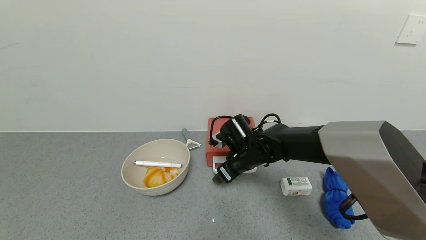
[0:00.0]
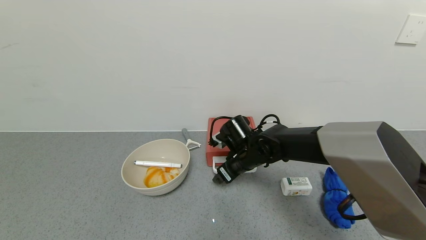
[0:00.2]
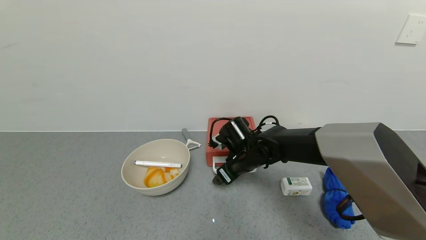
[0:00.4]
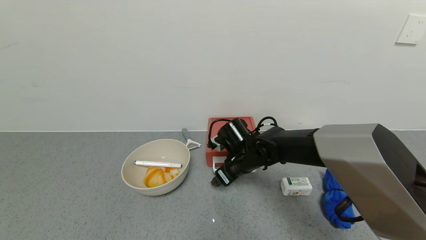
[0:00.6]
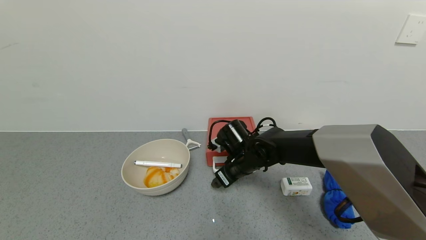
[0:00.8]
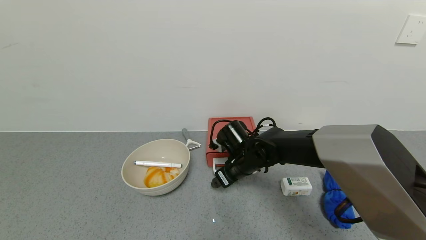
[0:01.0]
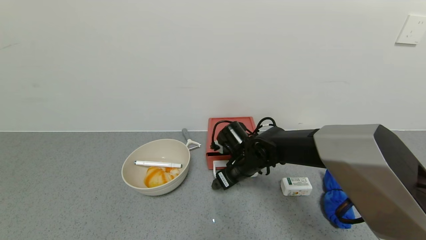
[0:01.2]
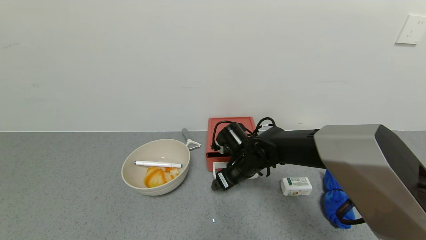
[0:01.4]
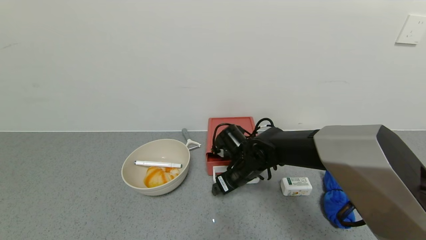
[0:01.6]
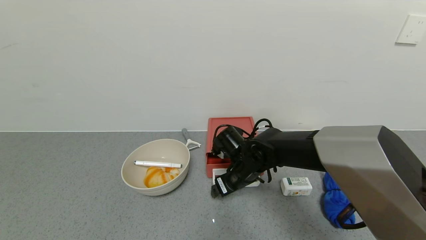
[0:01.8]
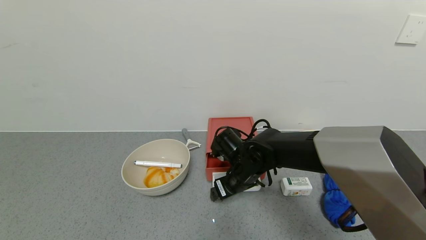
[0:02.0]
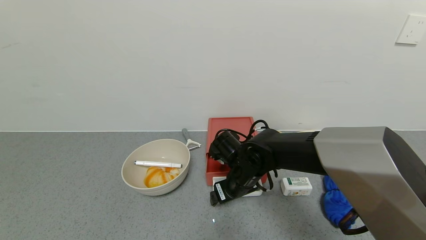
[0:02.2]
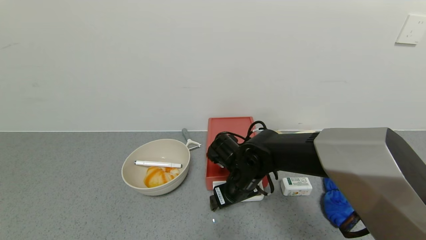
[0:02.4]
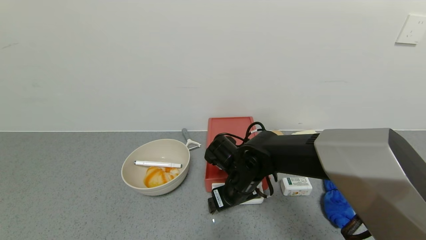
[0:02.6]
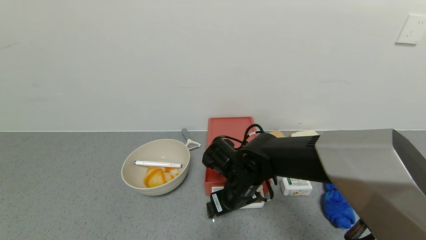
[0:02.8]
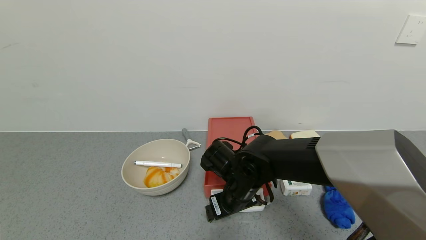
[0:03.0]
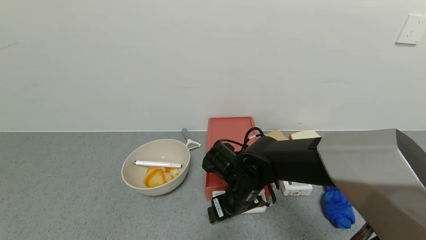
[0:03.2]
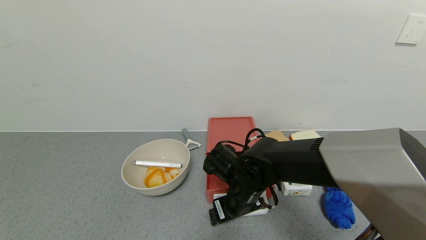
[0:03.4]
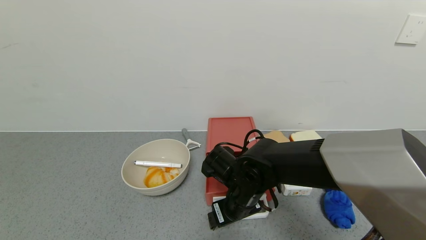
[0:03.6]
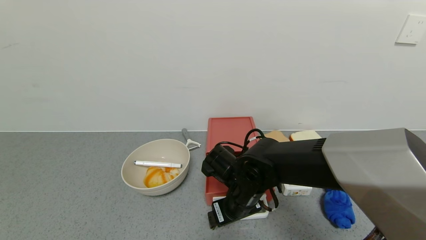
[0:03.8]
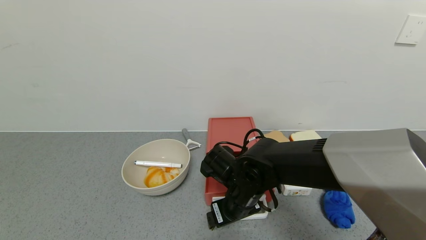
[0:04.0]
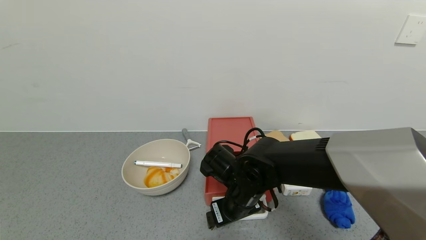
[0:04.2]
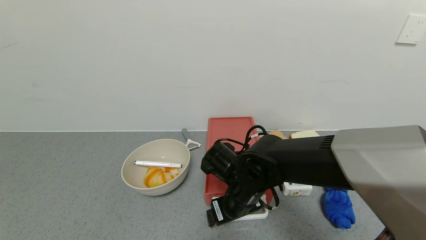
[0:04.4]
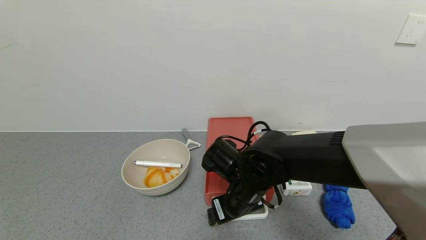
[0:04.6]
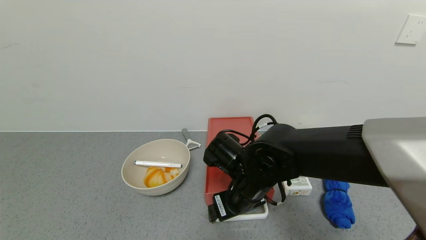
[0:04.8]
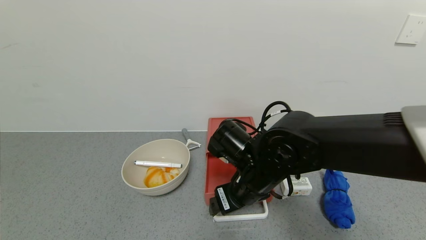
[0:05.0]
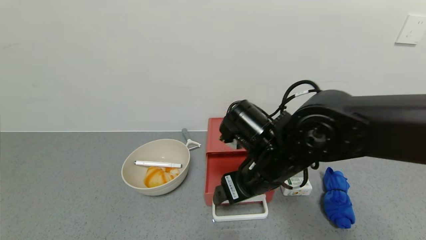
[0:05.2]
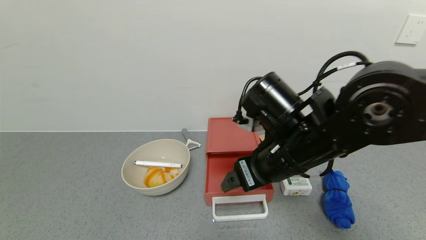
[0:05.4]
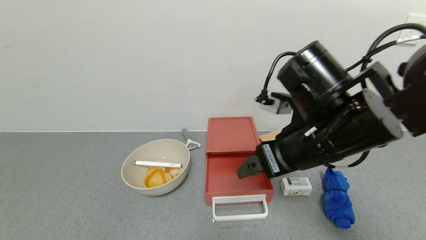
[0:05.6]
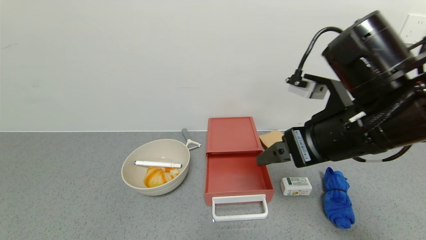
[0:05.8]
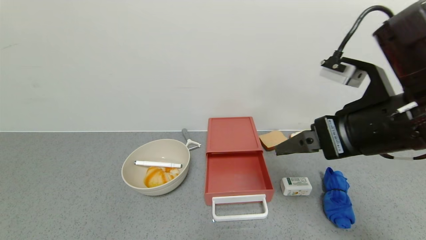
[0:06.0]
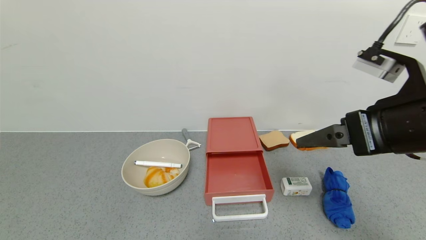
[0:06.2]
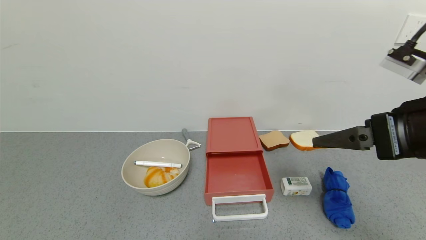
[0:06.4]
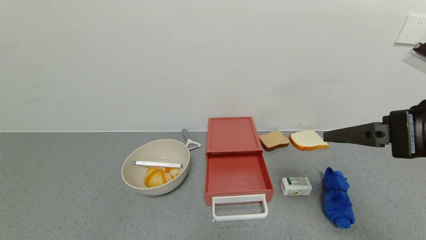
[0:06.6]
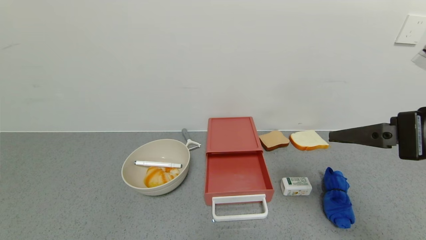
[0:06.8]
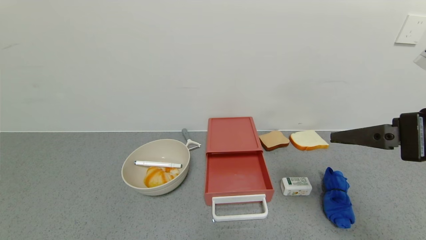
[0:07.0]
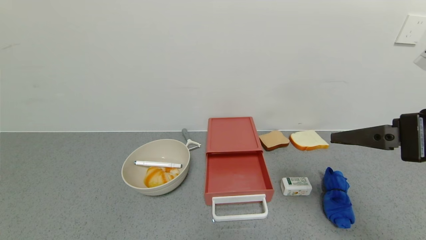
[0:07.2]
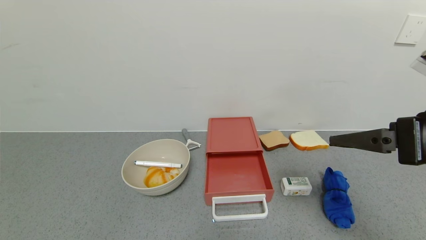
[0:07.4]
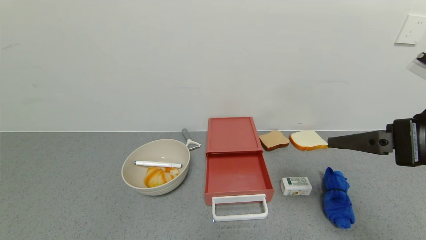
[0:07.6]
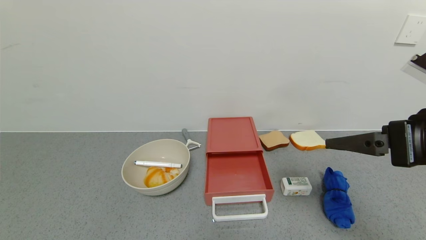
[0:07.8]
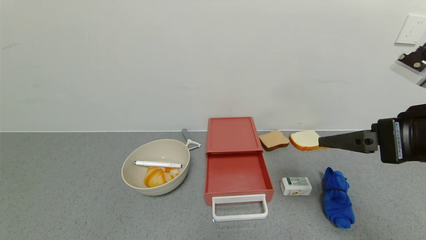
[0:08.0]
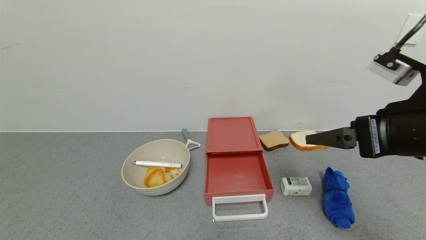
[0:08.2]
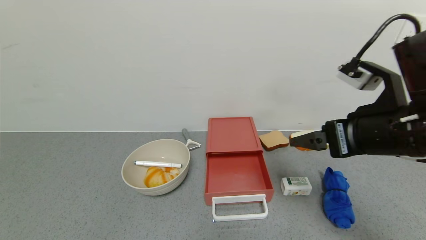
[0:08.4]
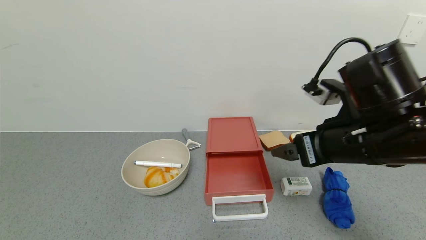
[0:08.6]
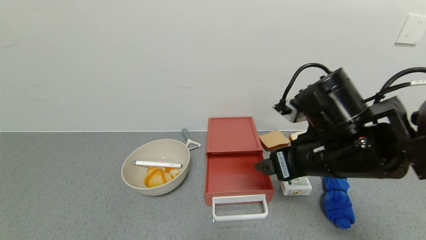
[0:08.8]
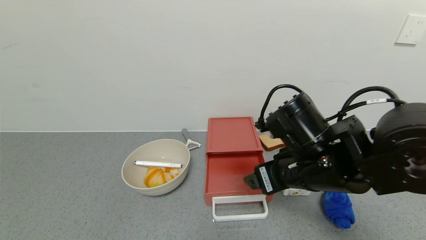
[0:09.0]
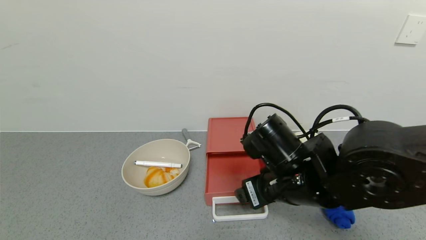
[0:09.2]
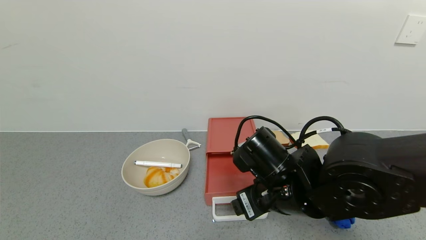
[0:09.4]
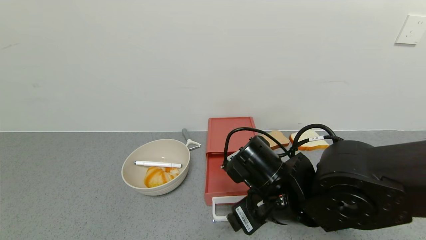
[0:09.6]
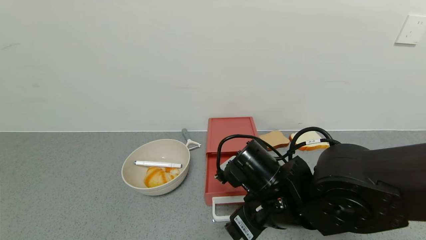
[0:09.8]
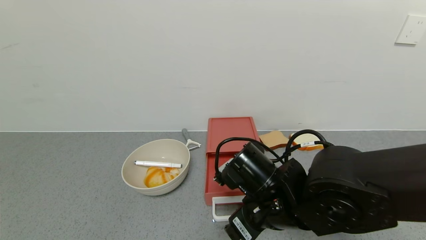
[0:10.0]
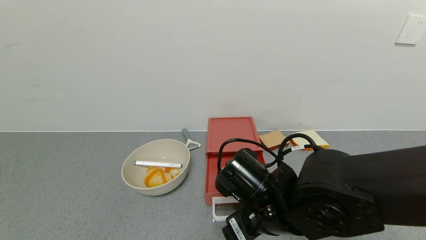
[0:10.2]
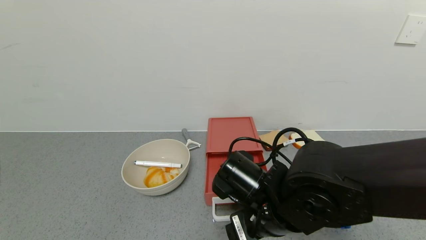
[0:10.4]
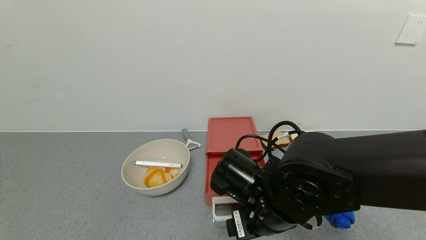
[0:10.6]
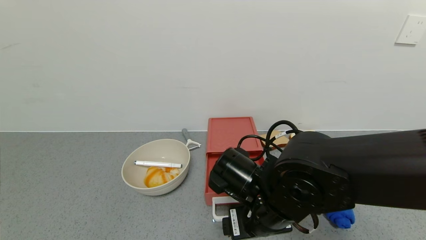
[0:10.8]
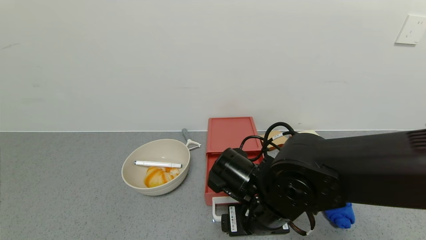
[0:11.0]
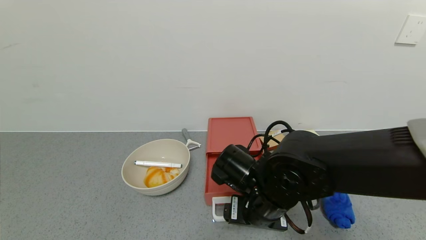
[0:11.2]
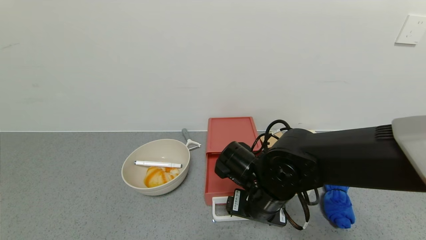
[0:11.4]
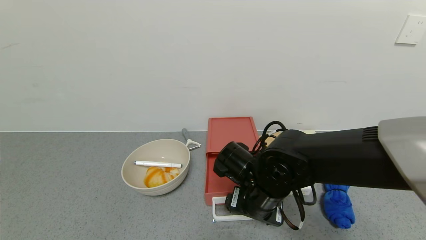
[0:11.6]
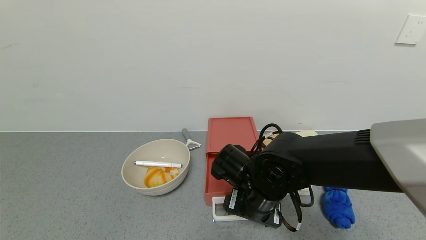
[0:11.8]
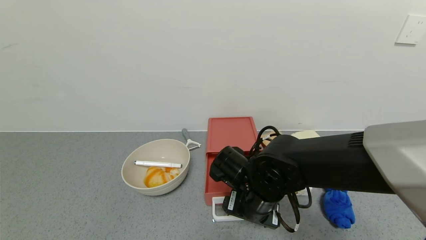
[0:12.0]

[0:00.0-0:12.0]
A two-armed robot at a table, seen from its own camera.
Task of the whole recording: use the gripper to open the drawer and close the red drawer.
Step, 0:00.0 to 0:05.0: Open the red drawer with the left gripper.
0:00.0 to 0:01.6: There are only small adjustments of the grippers.
0:01.6 to 0:03.0: The right gripper heads backward, covering some 5 cm.
0:03.0 to 0:04.4: The left gripper reaches about 10 cm upward, then returns.
0:04.4 to 0:06.0: The right gripper goes some 25 cm upward and to the right.
0:06.0 to 0:07.6: The right gripper shifts roughly 5 cm to the right.
0:07.6 to 0:09.0: The right gripper heads to the left, downward and forward, covering roughly 20 cm.
0:09.0 to 0:10.4: The right gripper goes about 10 cm downward and to the left.
0:10.4 to 0:12.0: The right gripper ends up about 5 cm from where it was.

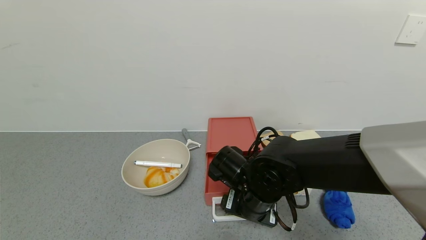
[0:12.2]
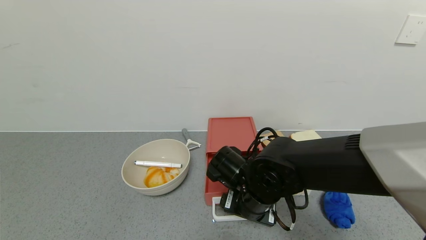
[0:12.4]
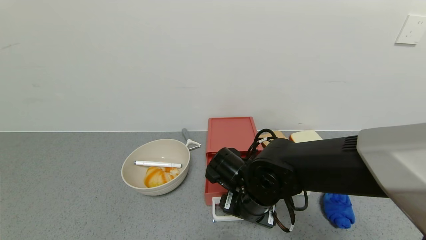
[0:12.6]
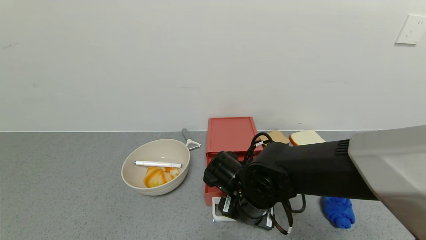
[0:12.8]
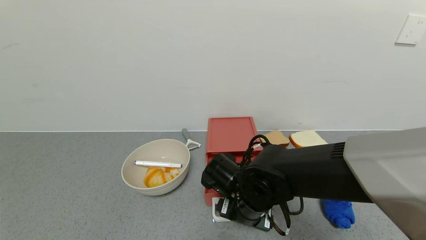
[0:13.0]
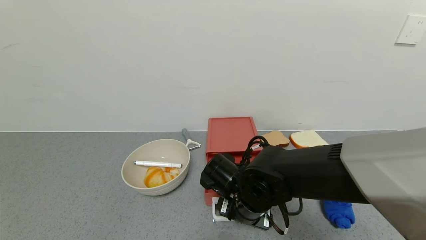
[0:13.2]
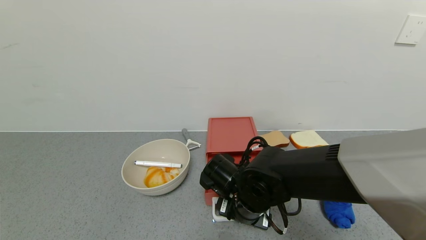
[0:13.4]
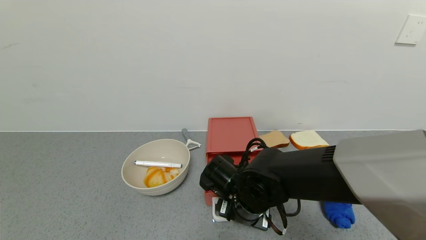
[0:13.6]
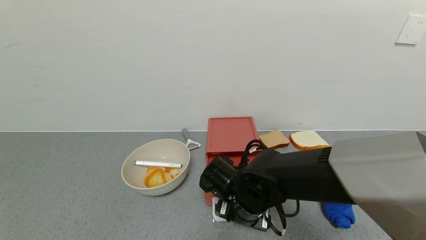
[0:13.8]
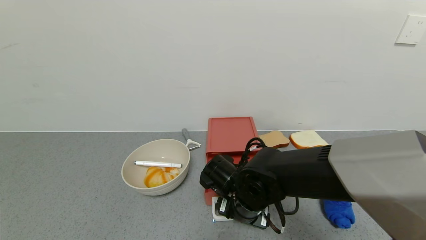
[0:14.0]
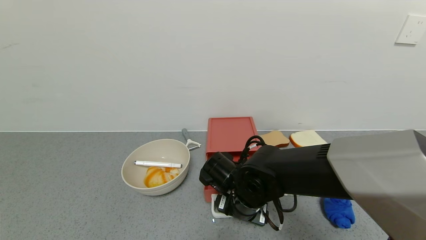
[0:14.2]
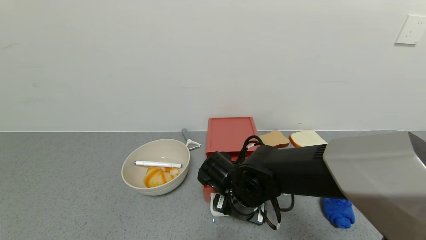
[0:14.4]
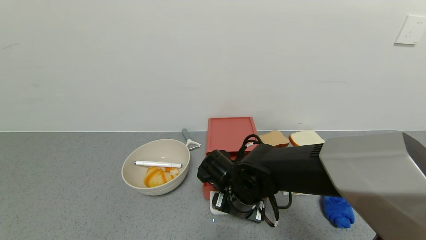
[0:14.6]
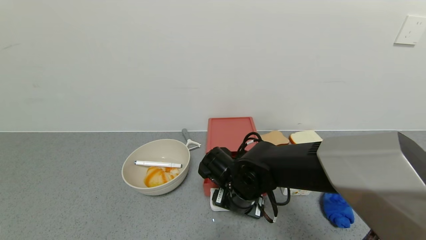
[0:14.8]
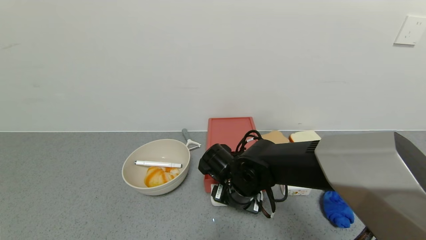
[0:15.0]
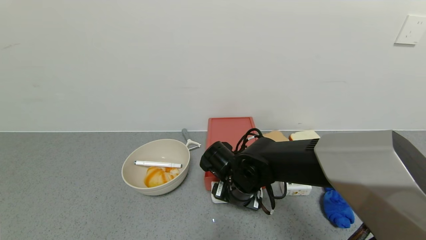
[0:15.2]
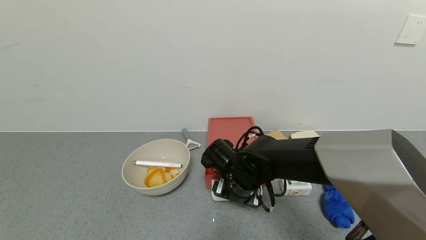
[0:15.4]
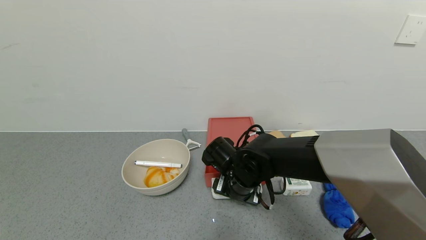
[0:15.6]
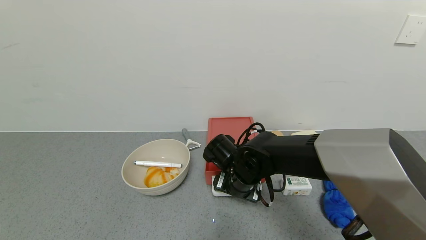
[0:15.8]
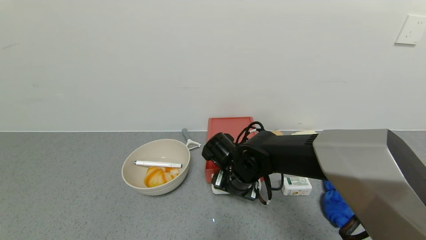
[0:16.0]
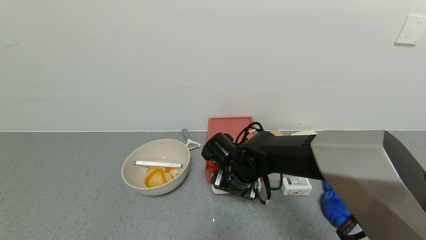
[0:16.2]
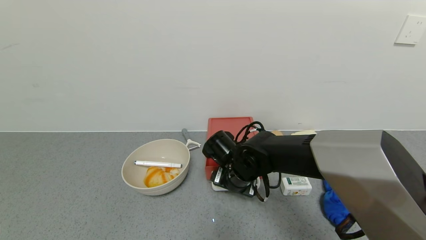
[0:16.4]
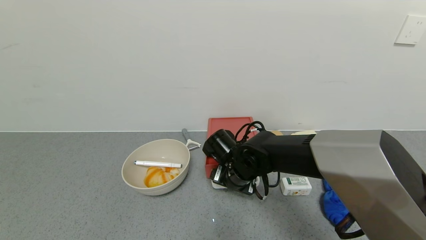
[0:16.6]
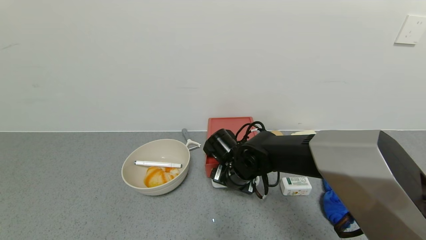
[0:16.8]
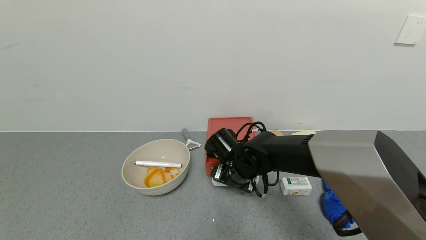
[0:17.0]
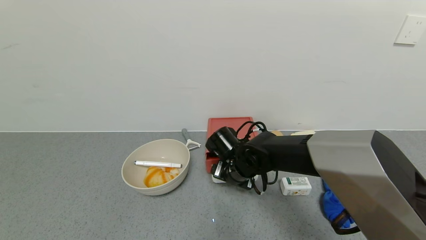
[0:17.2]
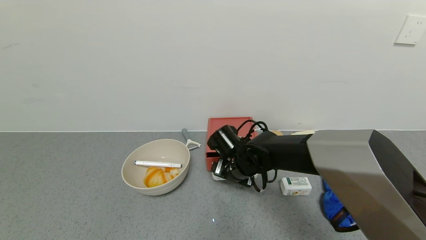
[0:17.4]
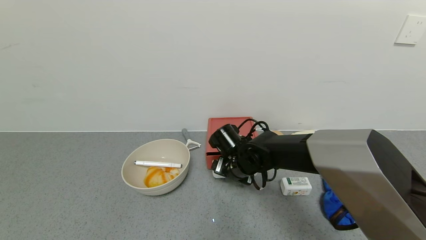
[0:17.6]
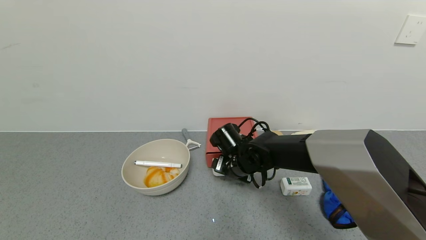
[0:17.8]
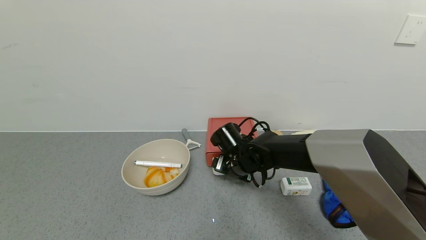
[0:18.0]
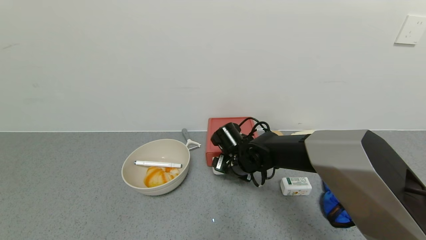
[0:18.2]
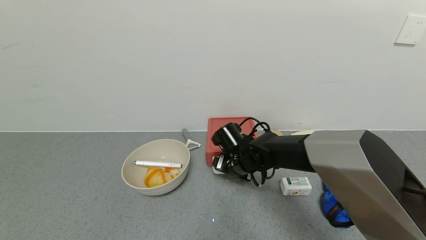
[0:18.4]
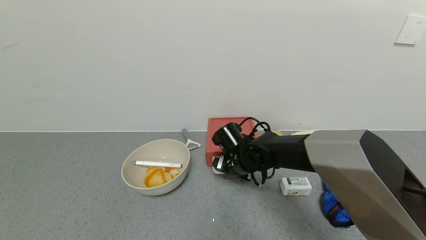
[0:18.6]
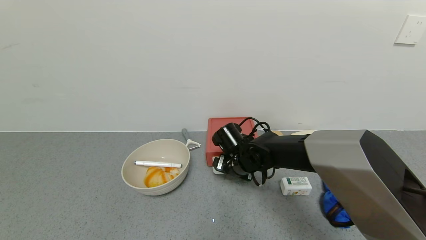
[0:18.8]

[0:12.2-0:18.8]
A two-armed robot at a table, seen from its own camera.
Task of the whole recording: use the gripper to open the drawer and close the red drawer.
0:12.2 to 0:15.4: The grippers make only small movements.
0:15.4 to 0:17.2: The grippers stay close to where they were, moving slightly.
0:17.2 to 0:18.8: The grippers move only a little.
